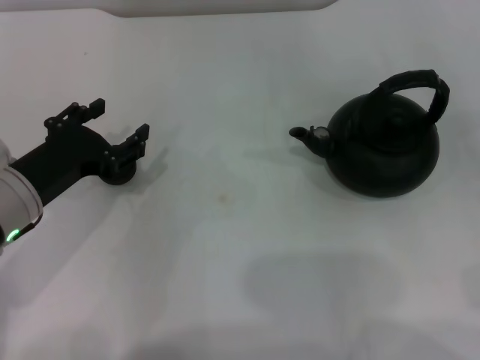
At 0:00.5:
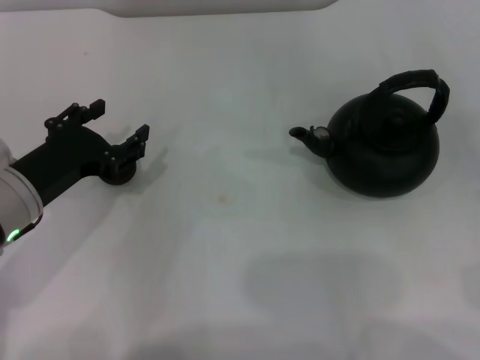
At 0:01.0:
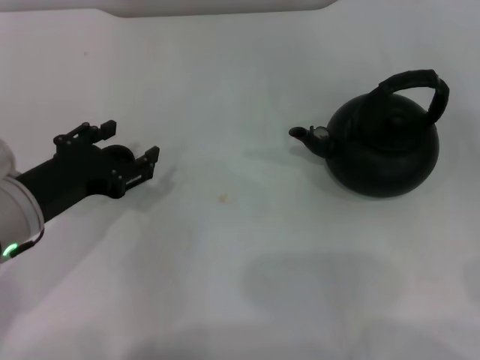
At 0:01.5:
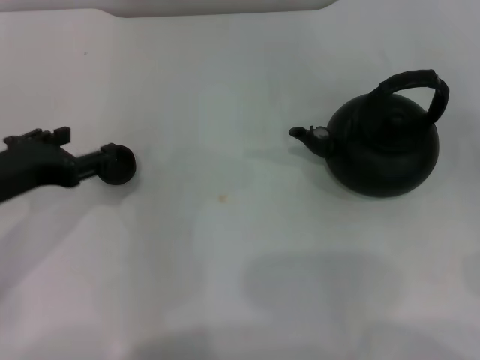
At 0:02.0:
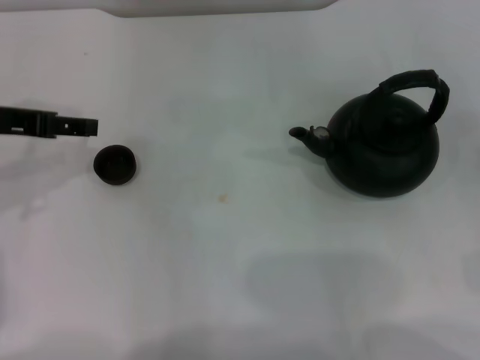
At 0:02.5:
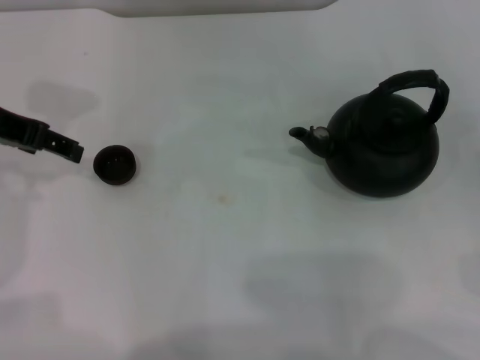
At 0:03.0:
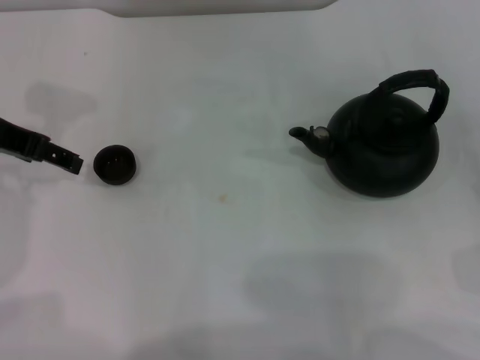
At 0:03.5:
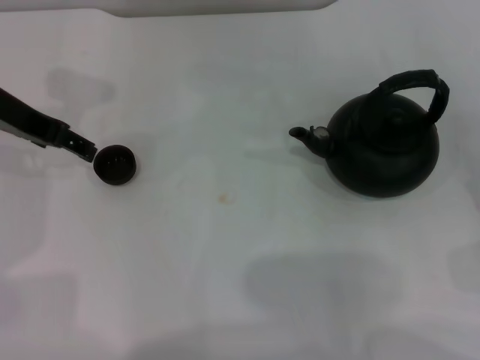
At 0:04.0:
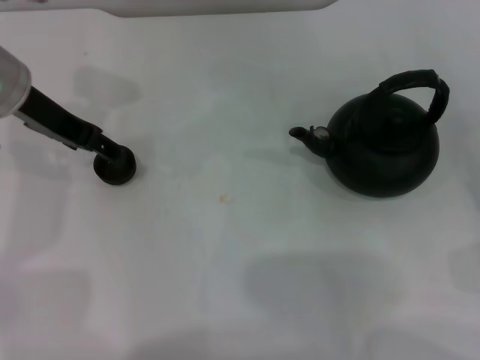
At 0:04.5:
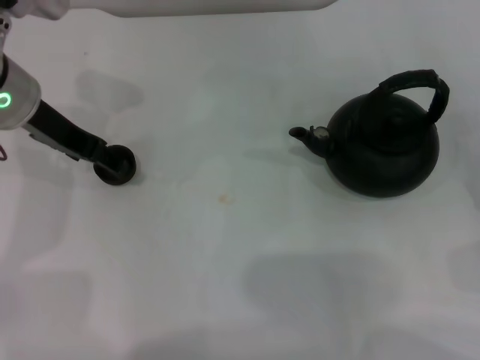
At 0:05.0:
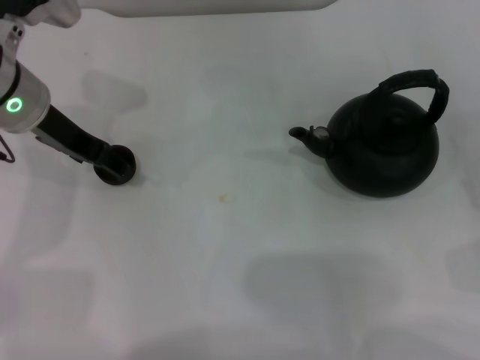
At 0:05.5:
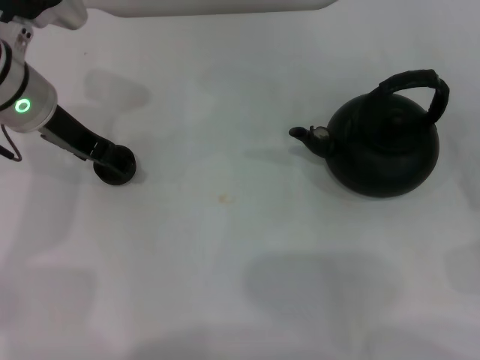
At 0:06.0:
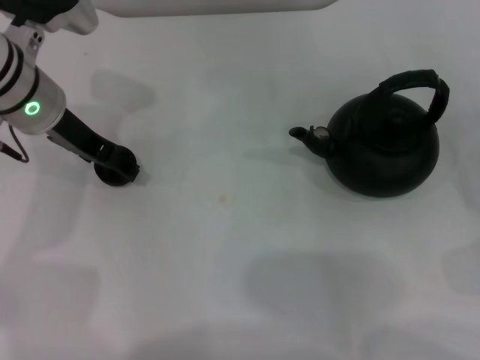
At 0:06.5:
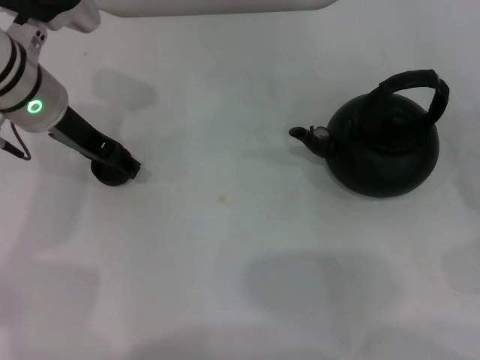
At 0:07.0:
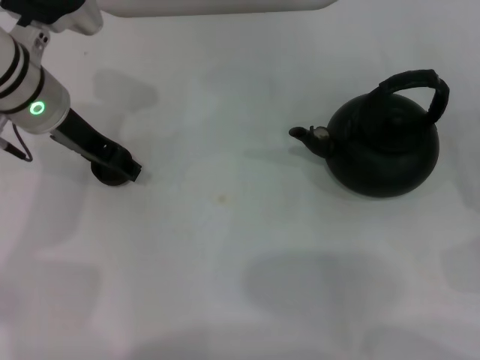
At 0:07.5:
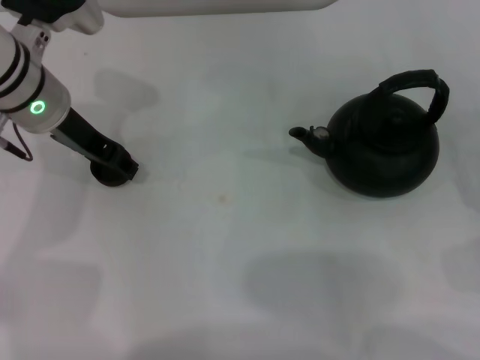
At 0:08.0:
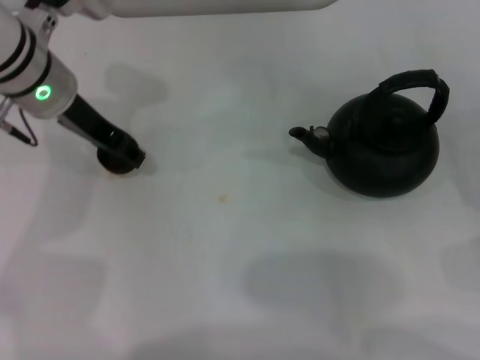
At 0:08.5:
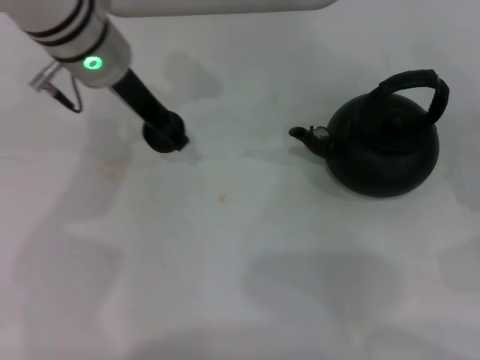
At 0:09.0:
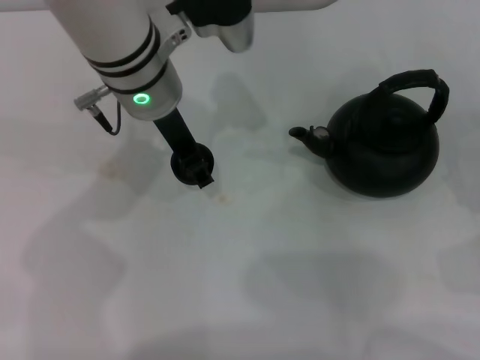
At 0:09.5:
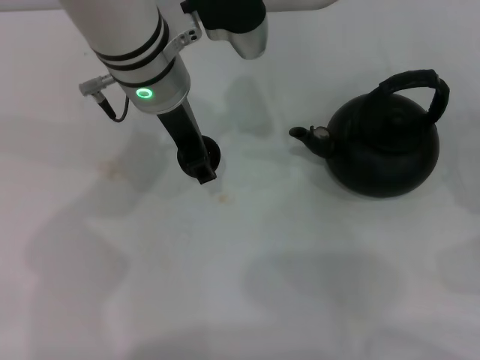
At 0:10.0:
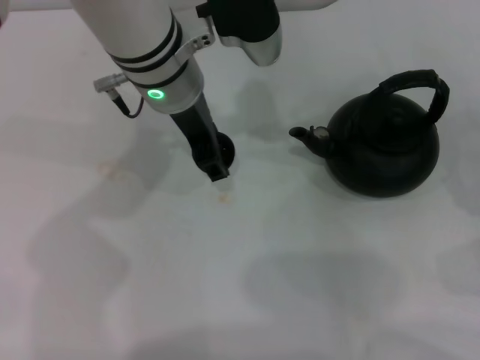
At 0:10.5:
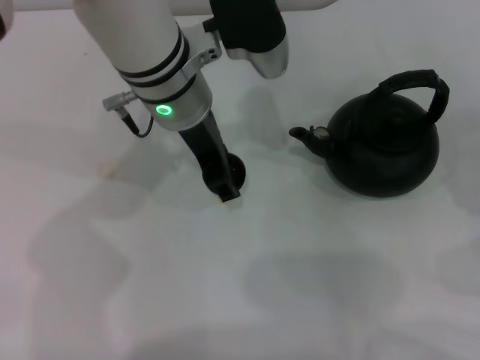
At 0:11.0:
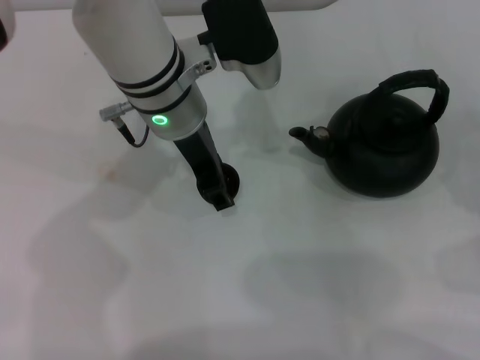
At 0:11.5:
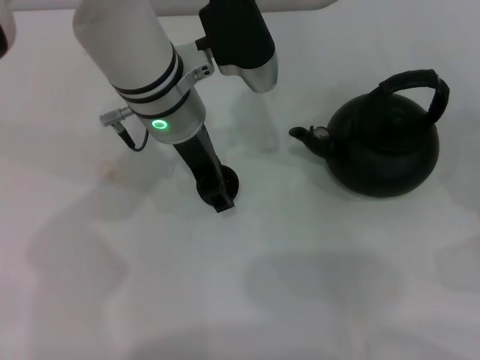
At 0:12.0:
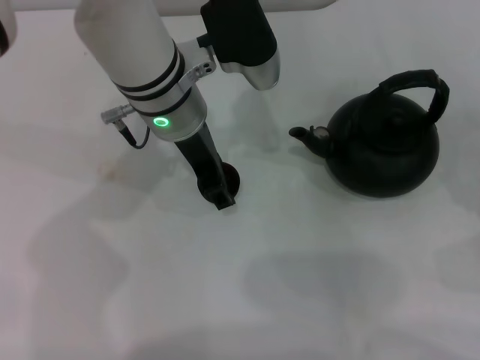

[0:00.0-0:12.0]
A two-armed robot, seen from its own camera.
Task of the whole recording: Grasp the handle of the teapot with one hand and pour tea into the teacup.
Step, 0:00.0 to 0:08.0: Pick up the teacup with the left gripper.
0:00.0 to 0:02.0: The left gripper shifts about 10 cm upward and forward.
0:02.0 to 0:04.0: The left gripper shifts approximately 10 cm forward and to the right, and opens its fingers.
0:04.0 to 0:06.0: There are only small adjustments of the grippers.
0:06.0 to 0:08.0: The left gripper closes up.
0:08.0 to 0:10.0: The left gripper heads to the right, covering about 10 cm.
0:10.0 to 0:12.0: The grippers move only a little.

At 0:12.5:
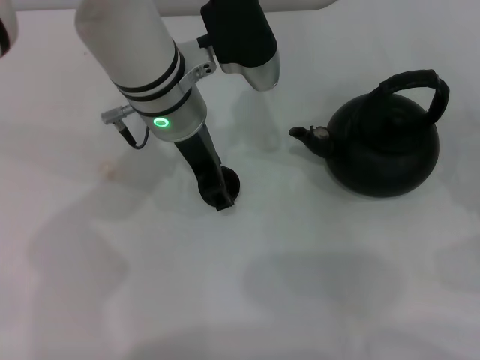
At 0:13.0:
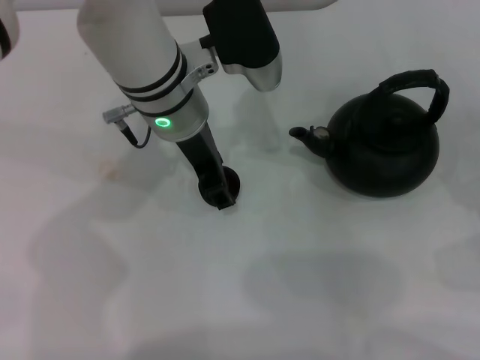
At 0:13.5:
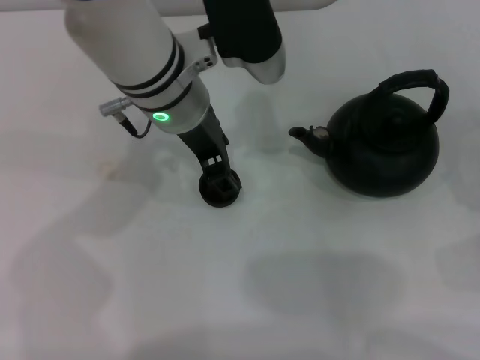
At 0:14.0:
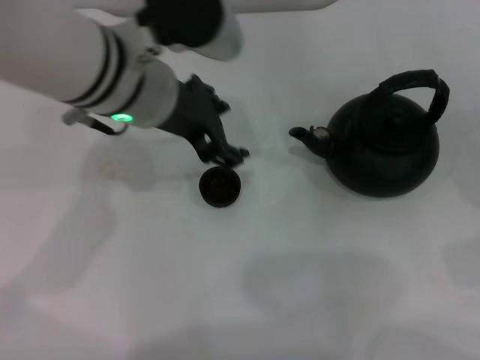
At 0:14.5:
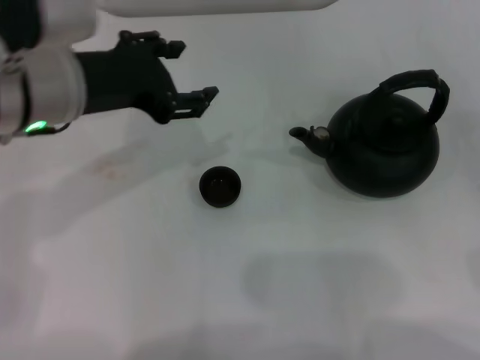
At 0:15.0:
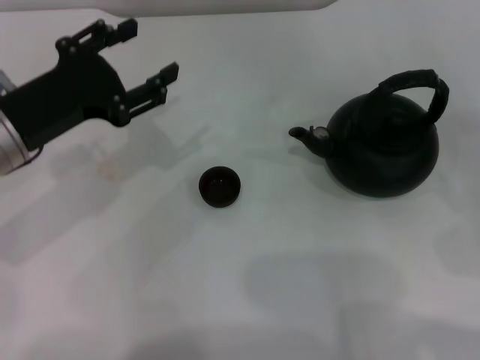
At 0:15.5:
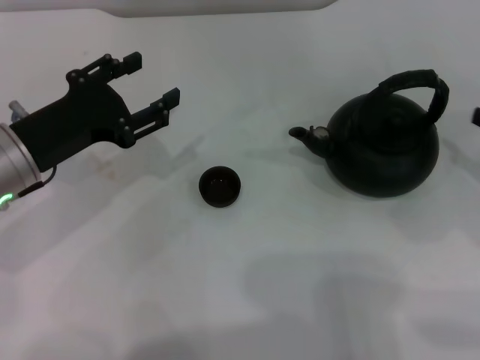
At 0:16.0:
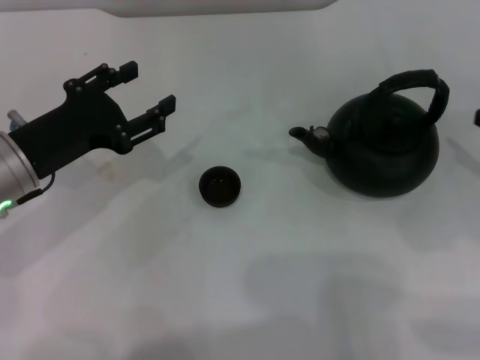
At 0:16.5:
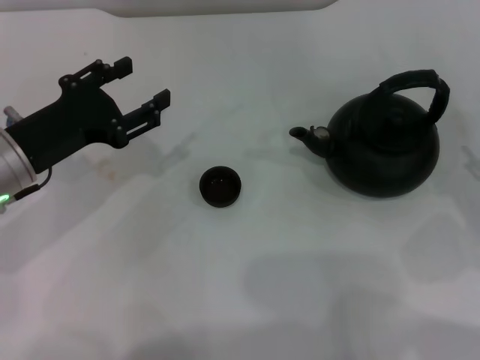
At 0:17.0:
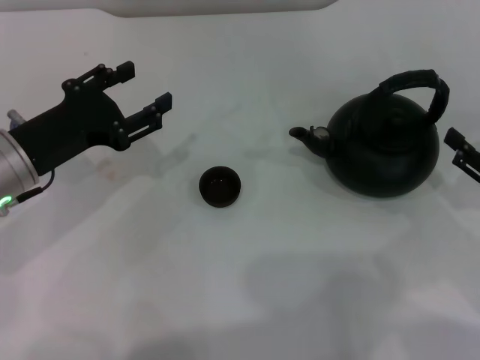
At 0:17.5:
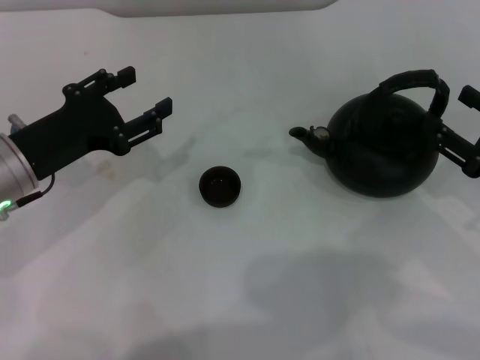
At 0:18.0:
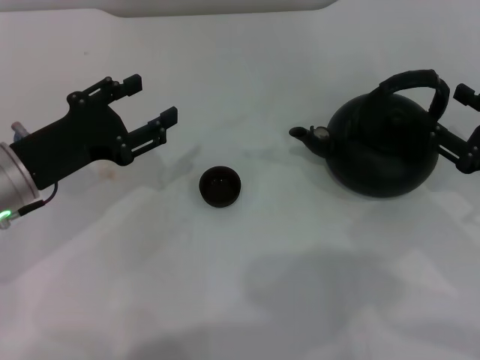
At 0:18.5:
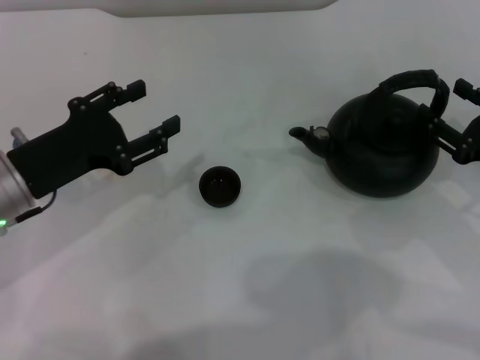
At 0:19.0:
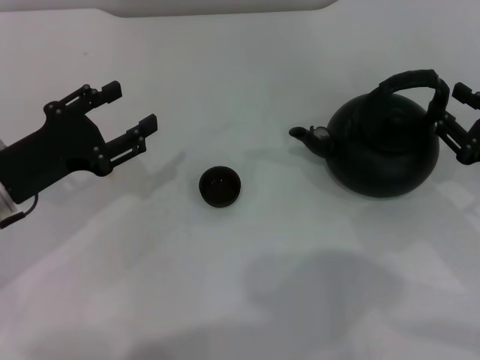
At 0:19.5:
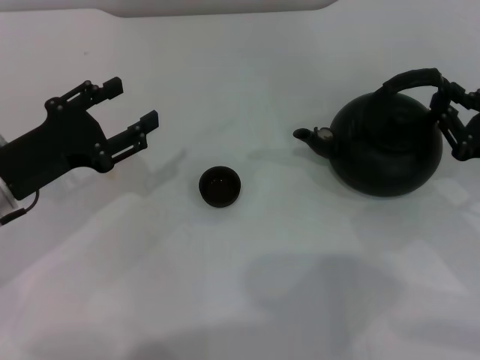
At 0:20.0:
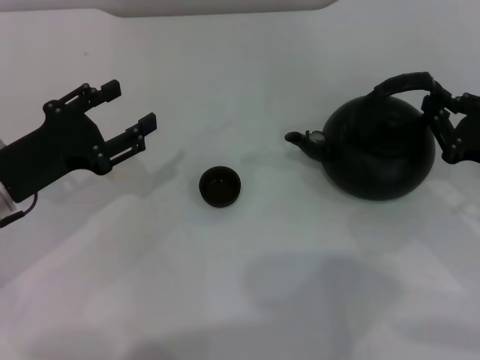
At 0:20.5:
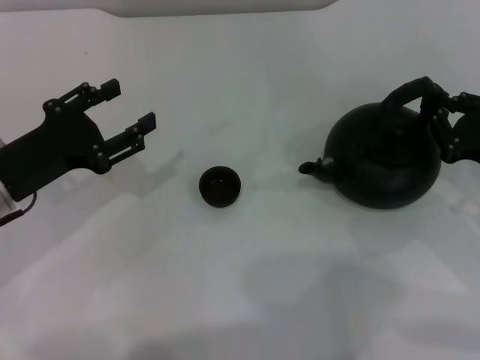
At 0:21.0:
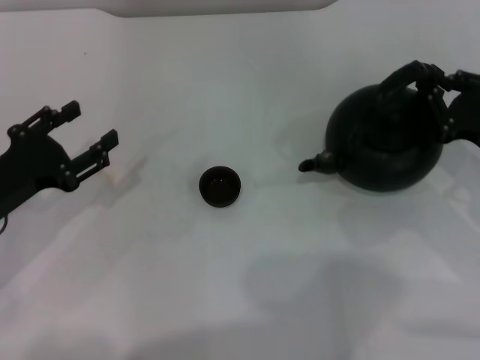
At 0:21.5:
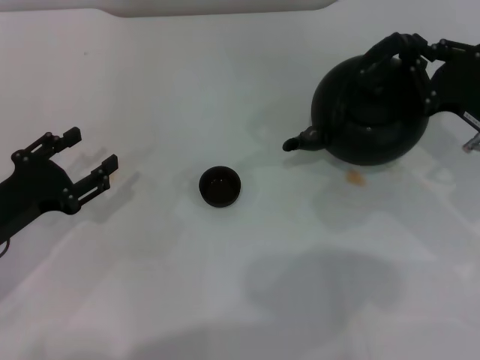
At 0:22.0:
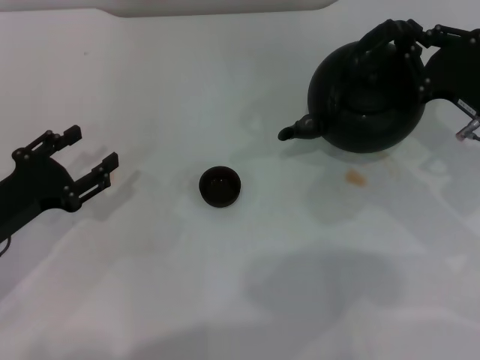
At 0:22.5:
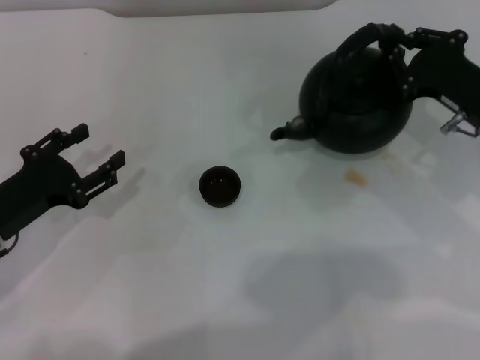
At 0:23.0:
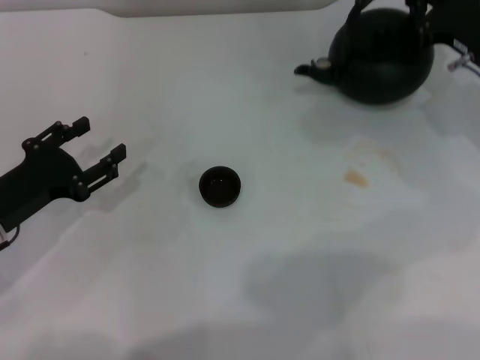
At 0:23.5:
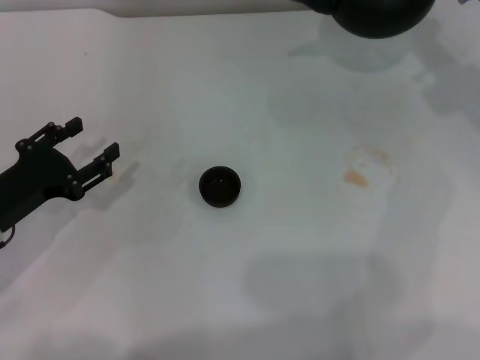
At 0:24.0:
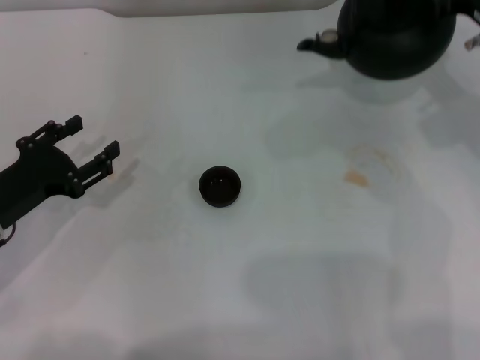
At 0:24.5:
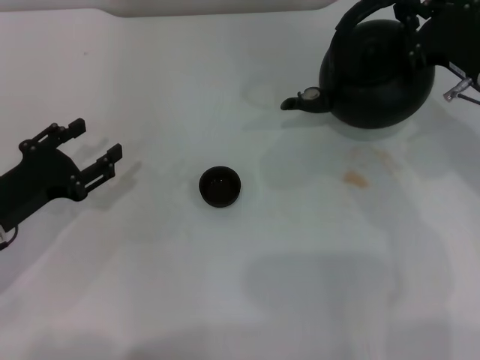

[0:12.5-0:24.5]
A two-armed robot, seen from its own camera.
Task of the whole recording: Grasp the handle of the teapot with one hand and pour tea into the teacup.
Step, 0:14.0 to 0:21.5: Pick up the teapot with the right gripper.
0:12.5 to 0:14.5: The right gripper shifts by roughly 5 cm; the left gripper travels to the left and backward by about 10 cm.
0:14.5 to 0:16.5: The left gripper goes roughly 10 cm downward and to the left, while the right gripper travels to the left by about 5 cm.
0:16.5 to 0:18.5: The right gripper shifts by some 5 cm.
0:18.5 to 0:20.5: The right gripper closes its fingers.
0:20.5 to 0:22.5: The right gripper shifts some 5 cm forward. The left gripper ends up approximately 5 cm from where it was.
0:22.5 to 0:24.5: The right gripper goes forward and returns, approximately 10 cm each way.

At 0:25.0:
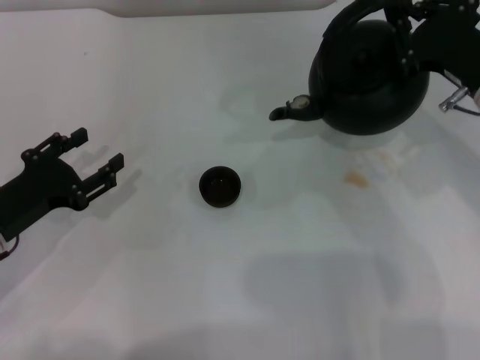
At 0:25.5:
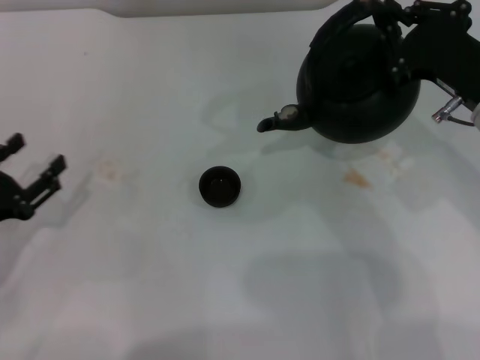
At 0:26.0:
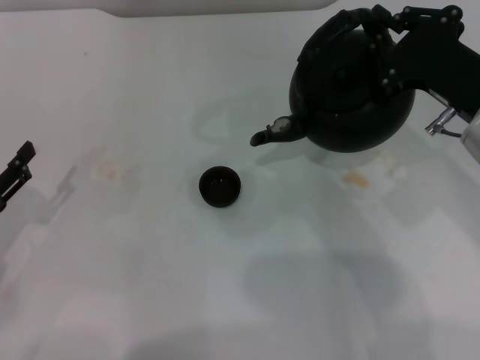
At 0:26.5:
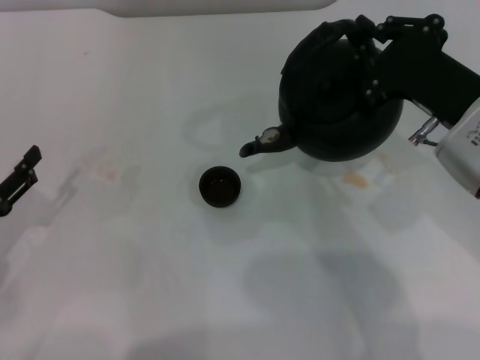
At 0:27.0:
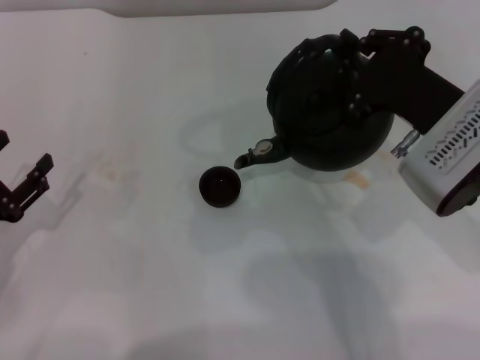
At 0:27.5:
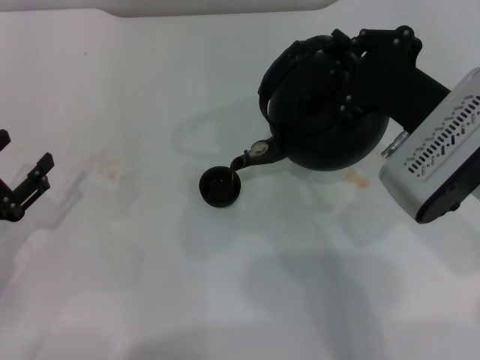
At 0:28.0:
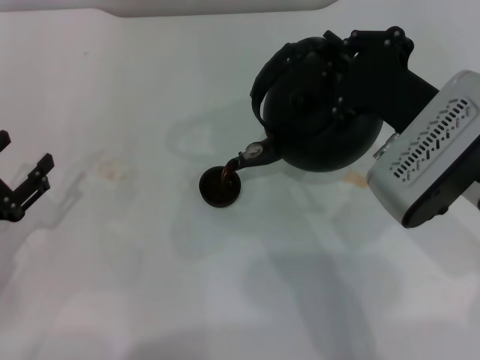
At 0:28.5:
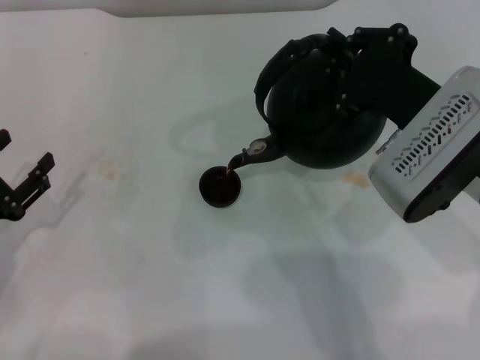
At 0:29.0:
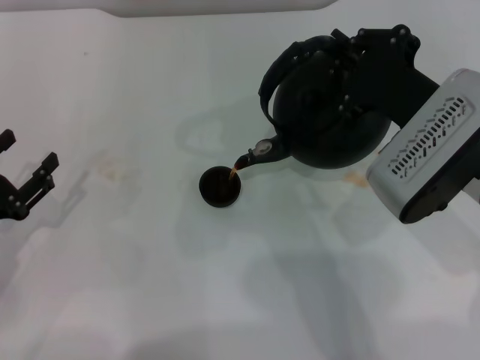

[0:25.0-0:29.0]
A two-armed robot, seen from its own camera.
Task of the whole recording: Grasp the handle of the teapot with one hand and pour tea into the teacup.
0:25.0 to 0:27.0: The right gripper shifts some 5 cm to the left. The left gripper shifts by about 5 cm.
0:27.0 to 0:29.0: The grippers stay close to where they were, moving slightly.
